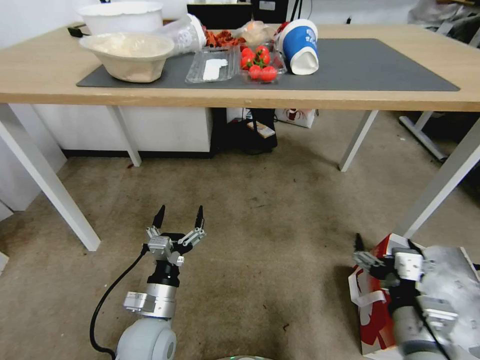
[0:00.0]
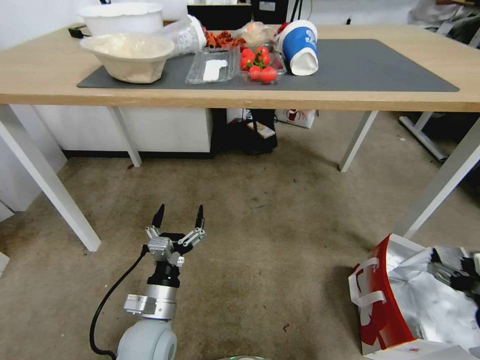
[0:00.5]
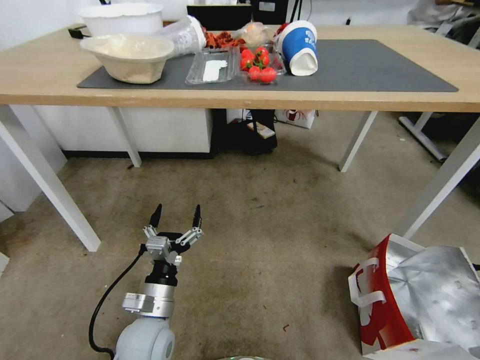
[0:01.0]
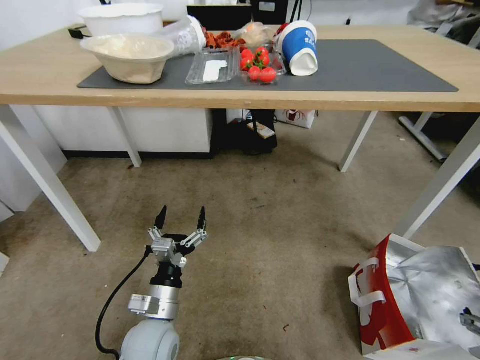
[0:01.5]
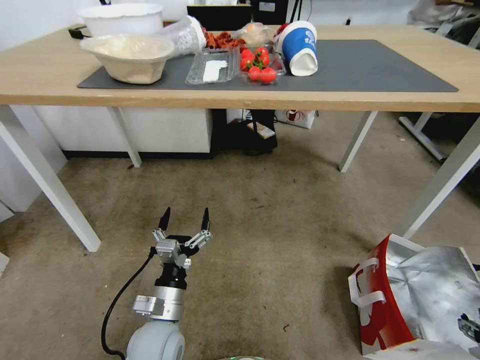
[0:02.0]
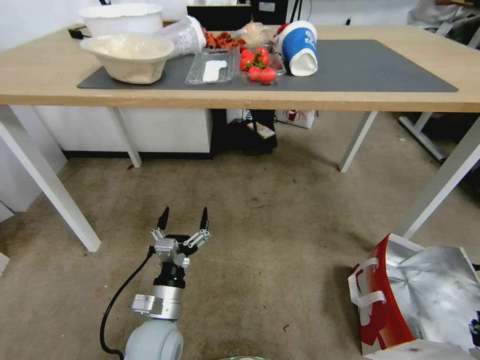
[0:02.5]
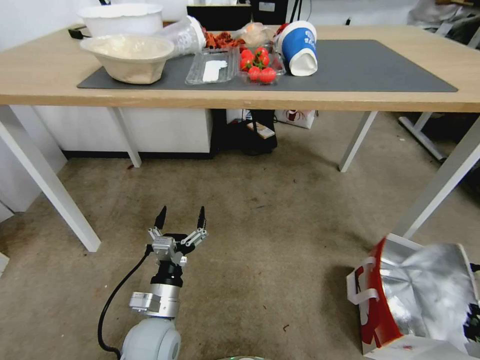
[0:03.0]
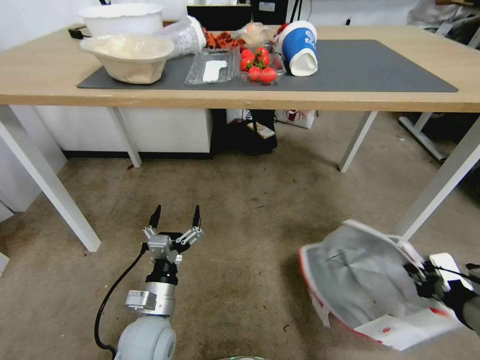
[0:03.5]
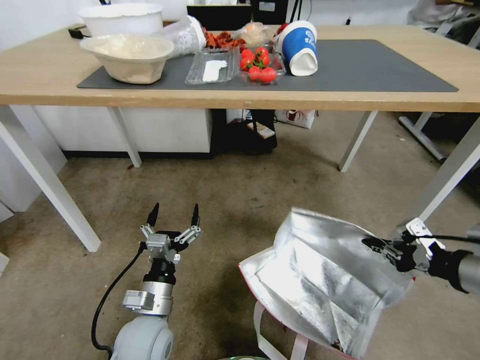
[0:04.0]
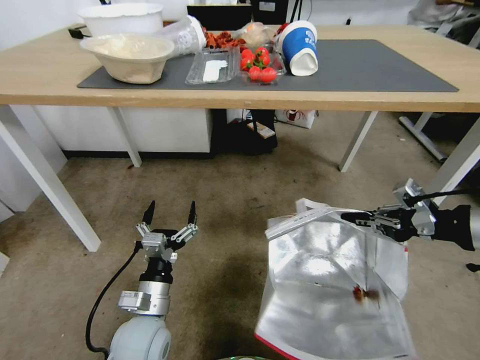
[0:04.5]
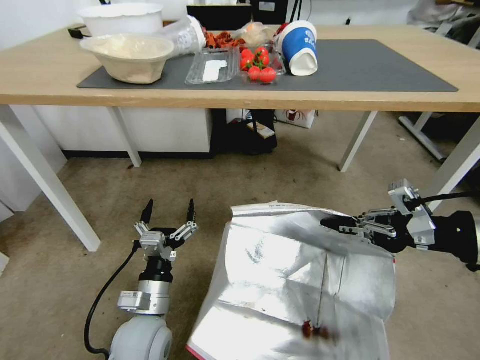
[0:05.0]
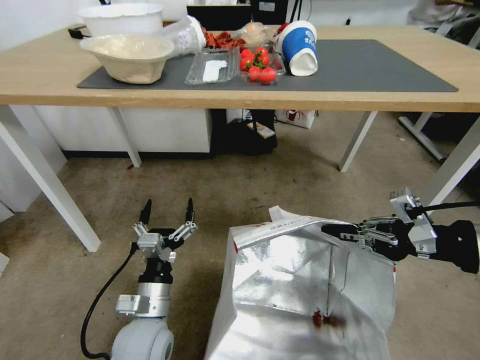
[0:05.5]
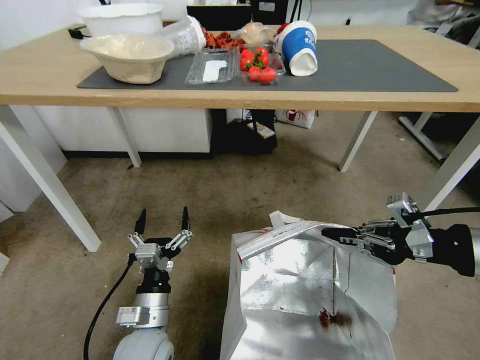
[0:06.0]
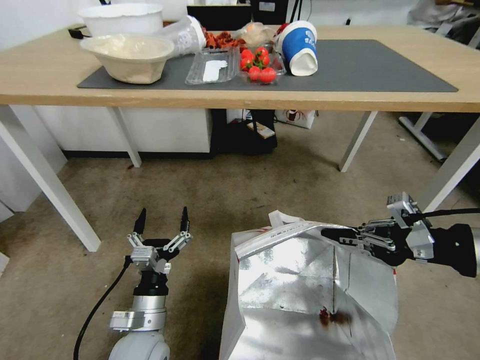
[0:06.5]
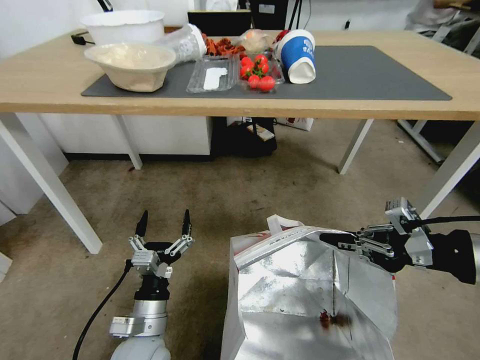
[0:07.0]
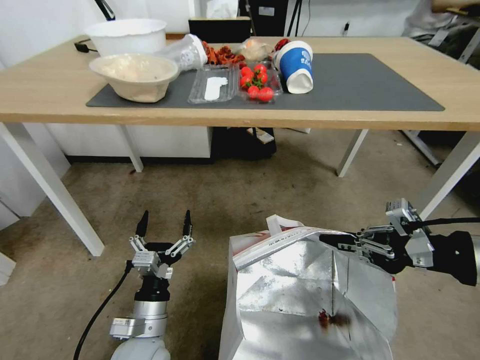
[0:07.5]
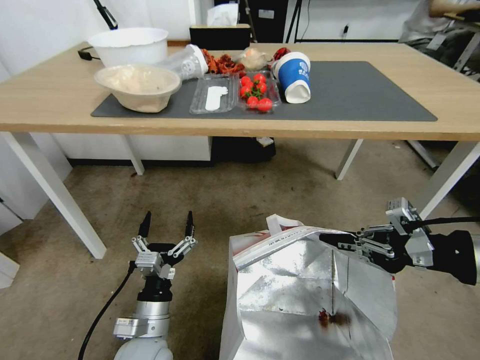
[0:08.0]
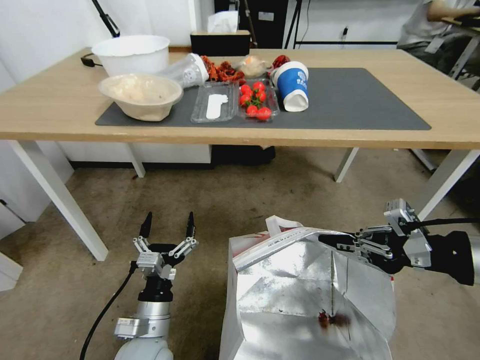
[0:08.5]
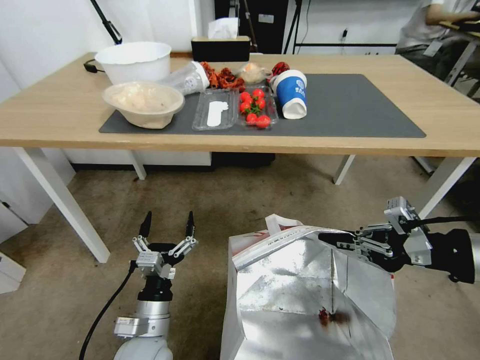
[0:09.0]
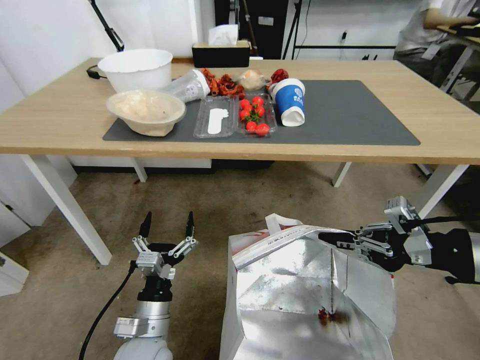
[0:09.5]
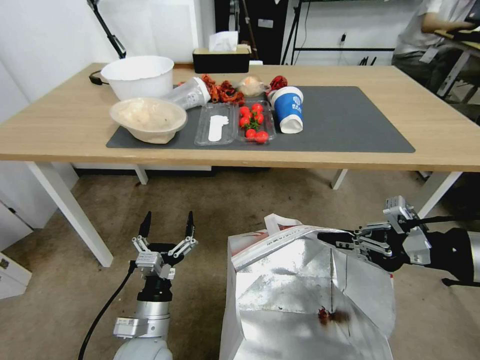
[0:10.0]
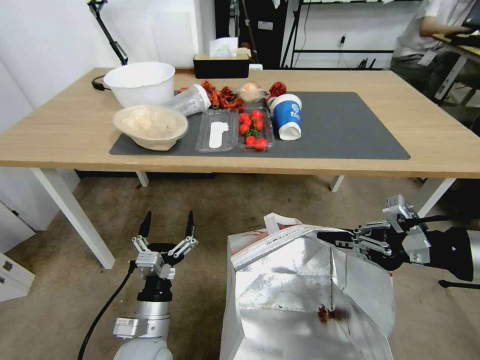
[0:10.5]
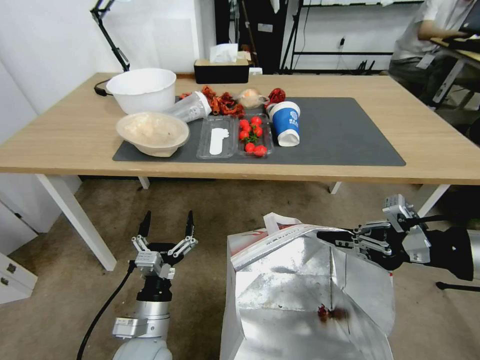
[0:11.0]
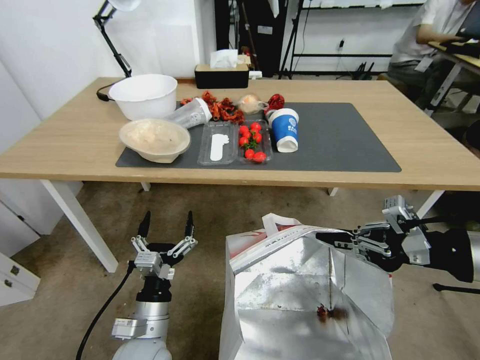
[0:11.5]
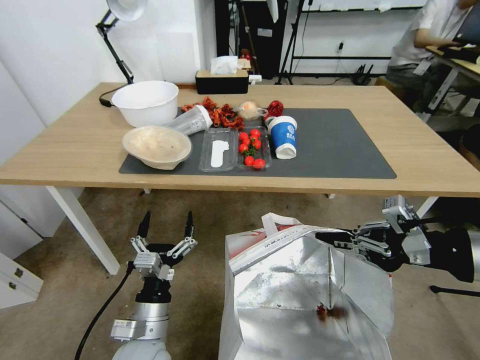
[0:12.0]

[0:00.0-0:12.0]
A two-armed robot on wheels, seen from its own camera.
Task of the whole recording: Pick up the food delivery bag from the floor and place it on the table.
0:00.0 to 0:02.0: The right gripper travels to the right by roughly 20 cm.
0:02.0 to 0:04.0: The right gripper shifts about 20 cm upward and forward, and closes up.
0:04.0 to 0:06.0: The right gripper goes about 5 cm upward.

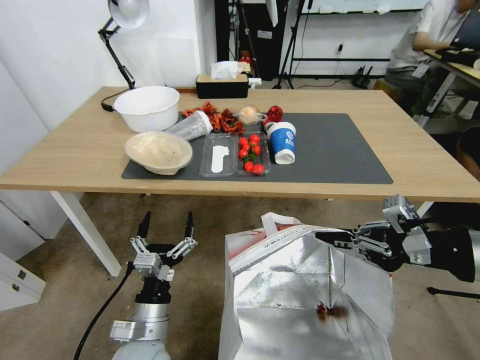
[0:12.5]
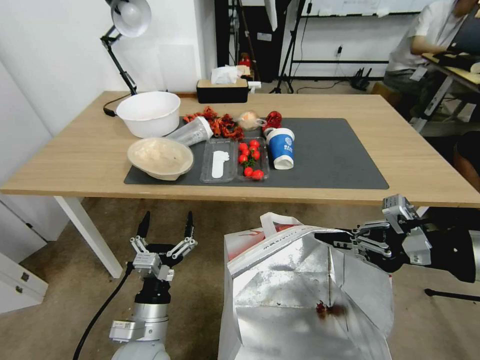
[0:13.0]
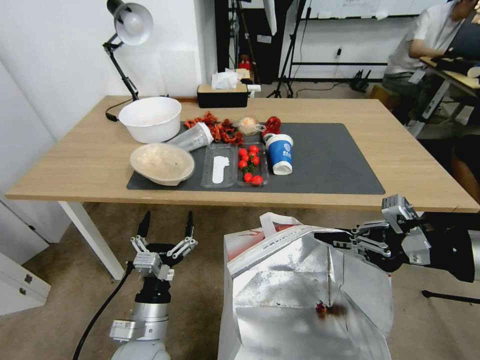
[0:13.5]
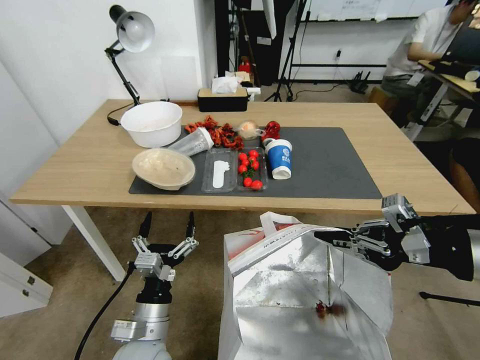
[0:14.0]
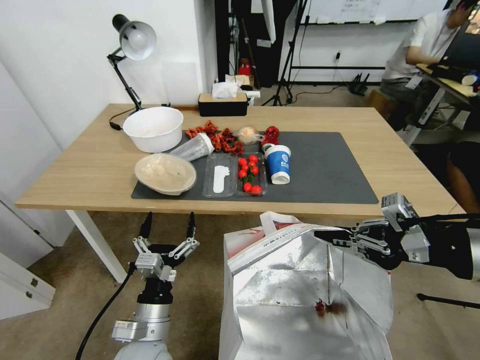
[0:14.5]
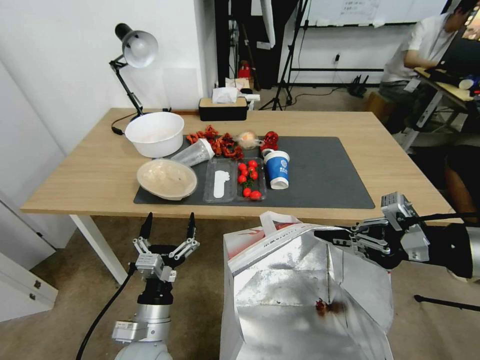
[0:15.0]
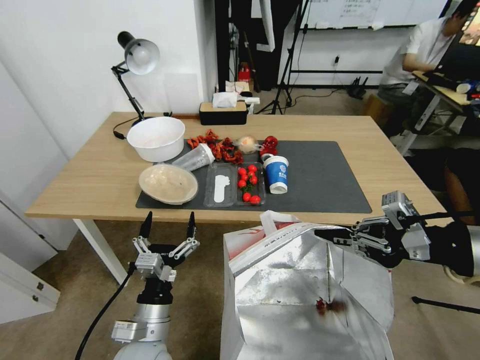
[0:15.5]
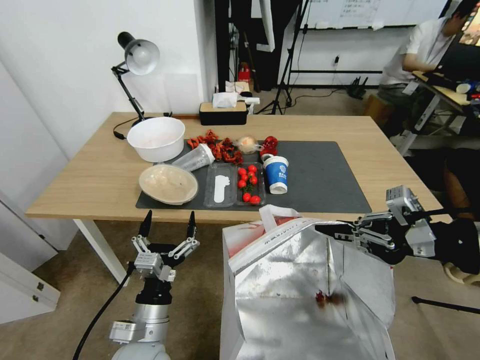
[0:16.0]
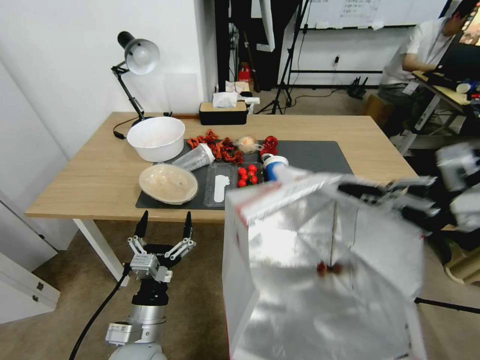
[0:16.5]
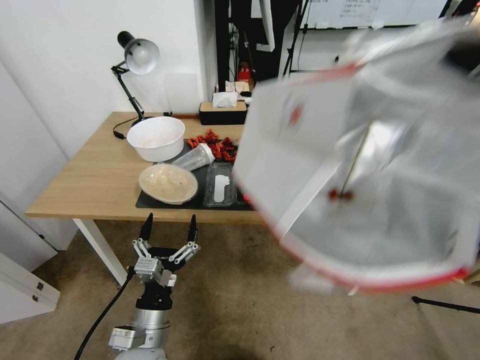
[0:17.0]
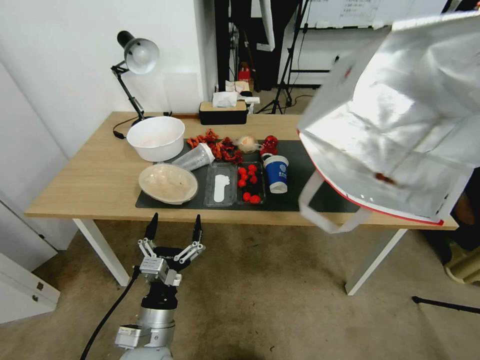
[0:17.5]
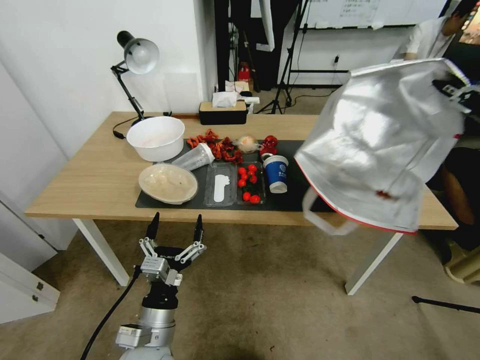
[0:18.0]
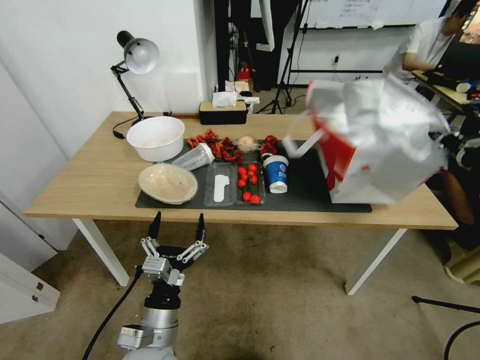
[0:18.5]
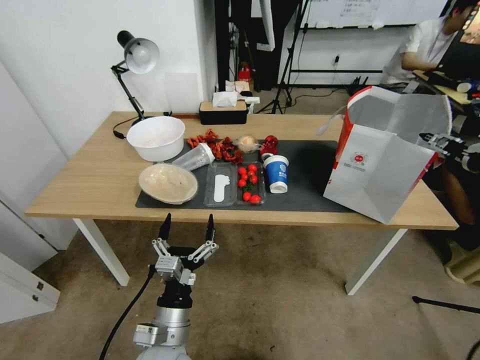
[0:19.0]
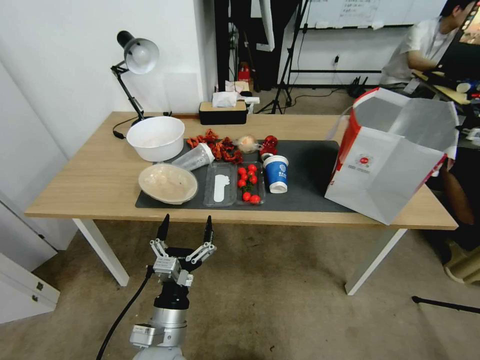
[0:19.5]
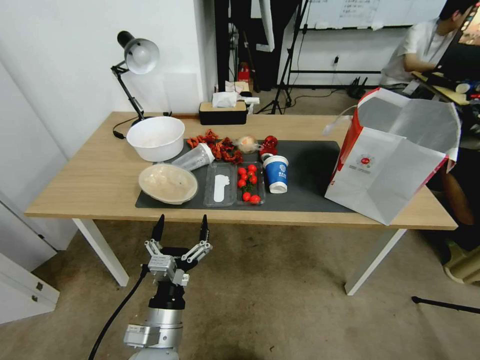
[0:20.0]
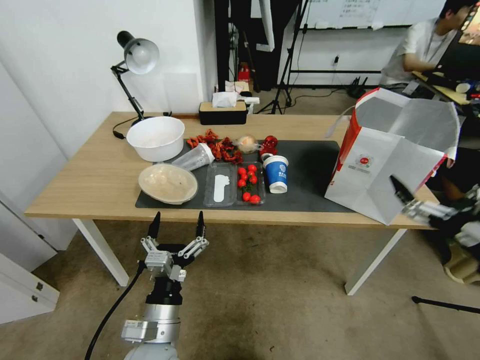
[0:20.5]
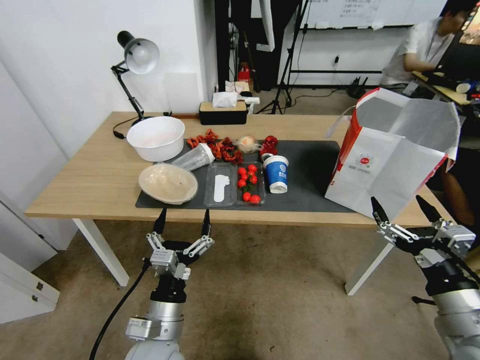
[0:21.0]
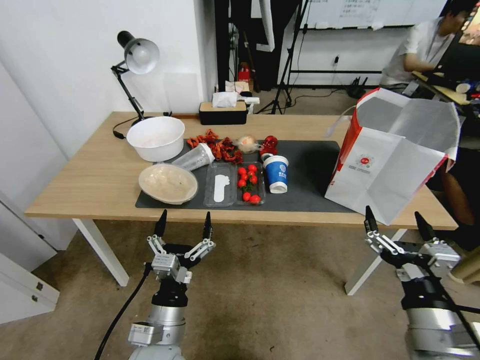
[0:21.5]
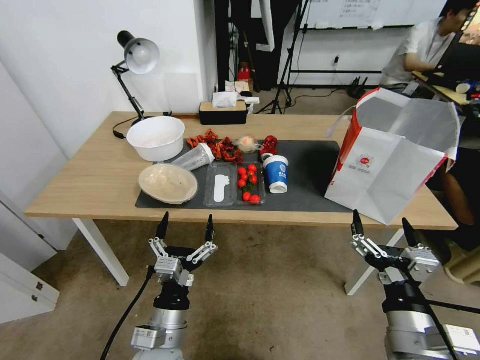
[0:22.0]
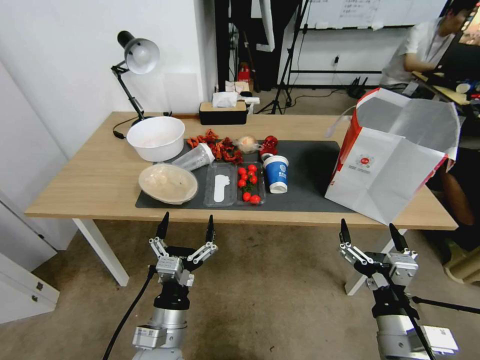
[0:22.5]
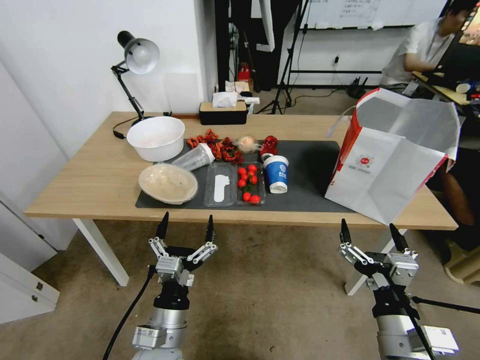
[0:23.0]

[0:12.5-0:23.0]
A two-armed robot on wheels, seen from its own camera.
Task of the whole recording: Pick up the food delivery bag from the floor and place it on the table.
0:14.5 to 0:16.5: The right gripper is displaced upward by roughly 5 cm.
0:16.5 to 0:19.0: The right gripper heads forward, to the right and downward, covering approximately 15 cm, and opens.
0:19.0 to 0:21.0: The right gripper moves downward, backward and to the left, about 25 cm, and opens up.
0:21.0 to 0:23.0: The right gripper heads to the left, covering some 10 cm.
